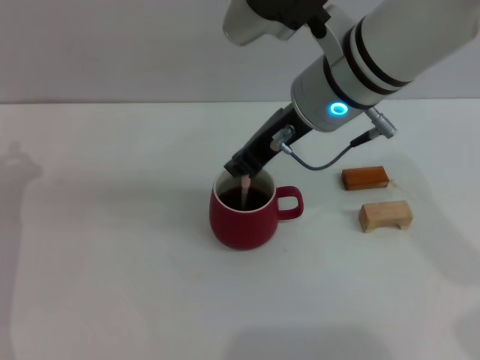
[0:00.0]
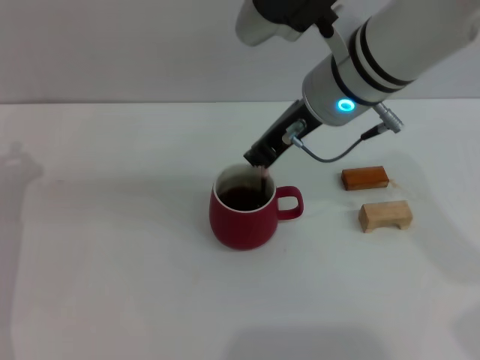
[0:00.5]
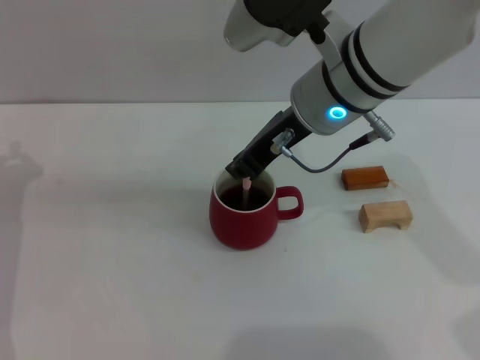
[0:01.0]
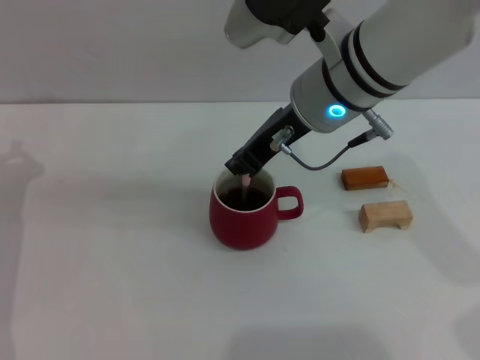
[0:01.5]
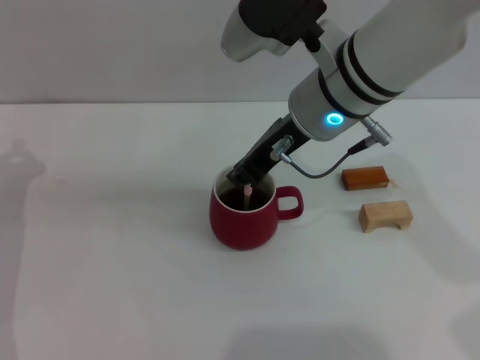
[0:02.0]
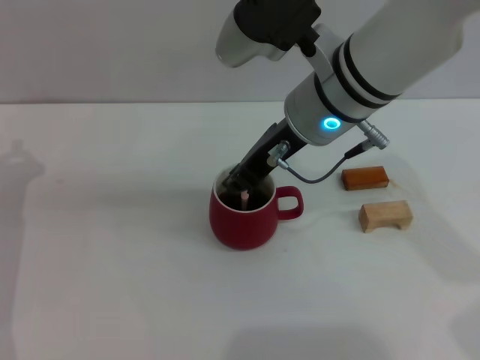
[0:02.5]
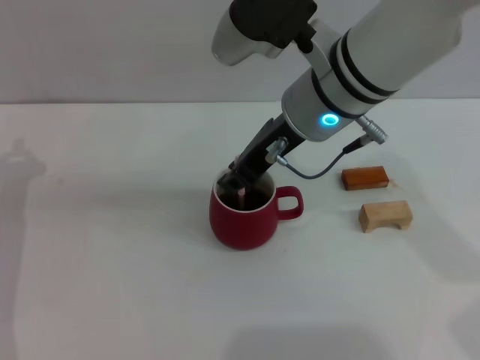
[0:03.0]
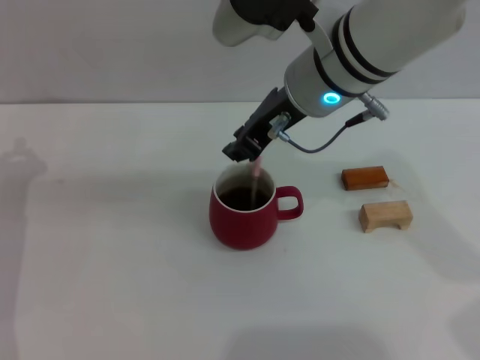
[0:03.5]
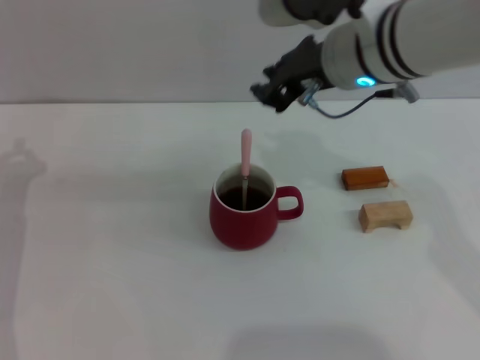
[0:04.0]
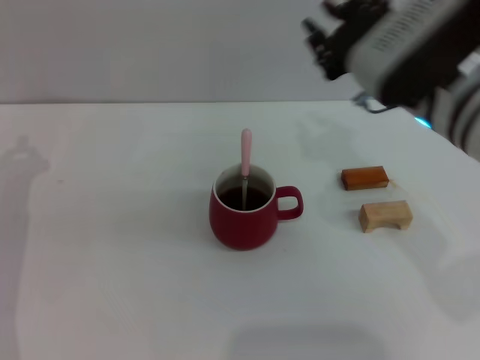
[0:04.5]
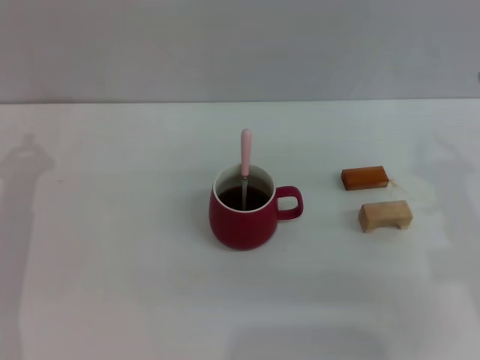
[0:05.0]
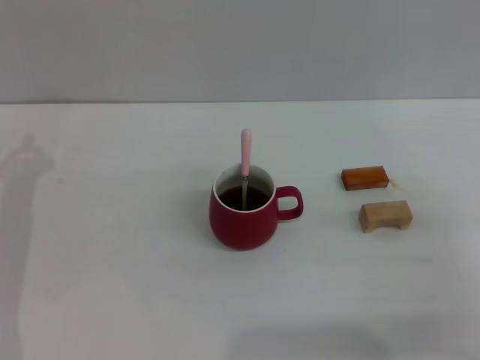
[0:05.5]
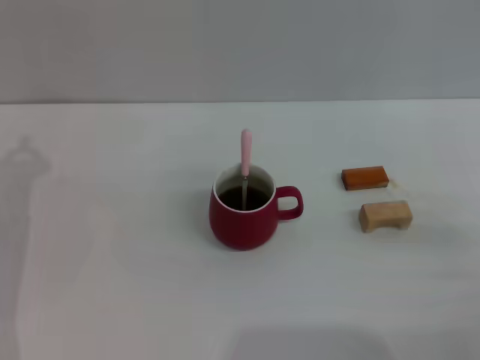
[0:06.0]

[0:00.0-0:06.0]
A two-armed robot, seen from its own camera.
Task of the whole recording: Move the red cup to the center, lift the pink spoon, stir it three times in the cup, and put the spoon into the cup.
Step, 0:00.0 to 0:03.5: Stir the coffee in the cup with the right gripper.
0:00.0 to 0:02.0: The grippers stay close to where they were, moving slightly.
0:04.0 to 0:06.0: The right gripper goes roughly 35 cm to the right, downward and backward.

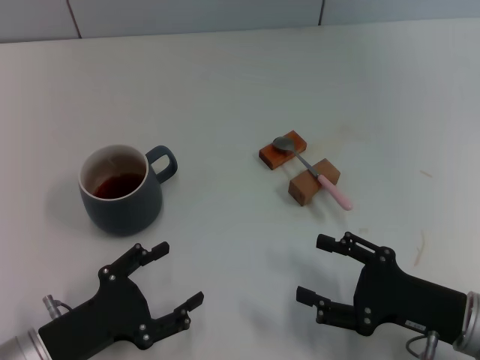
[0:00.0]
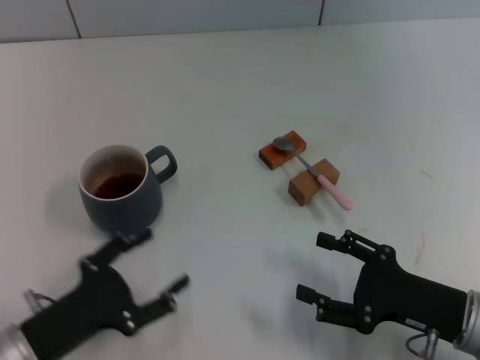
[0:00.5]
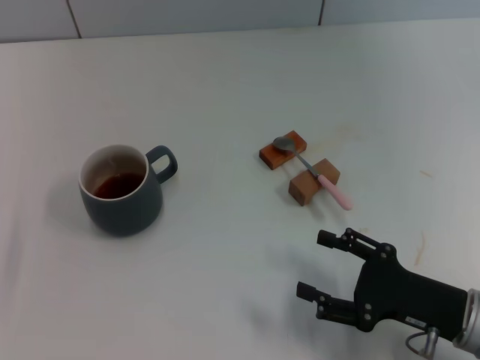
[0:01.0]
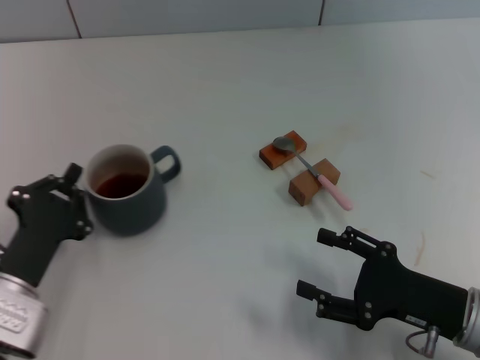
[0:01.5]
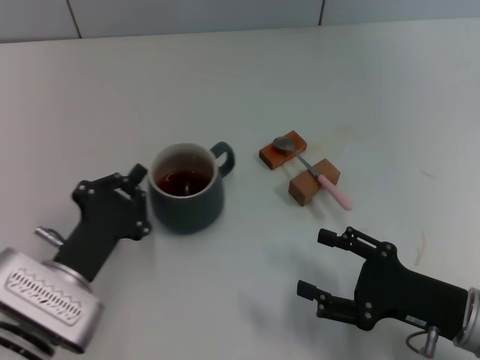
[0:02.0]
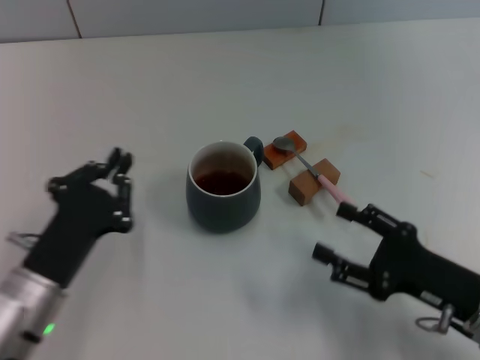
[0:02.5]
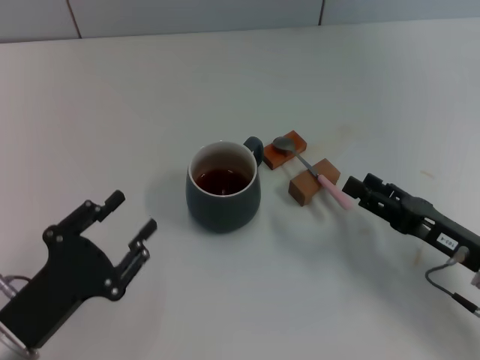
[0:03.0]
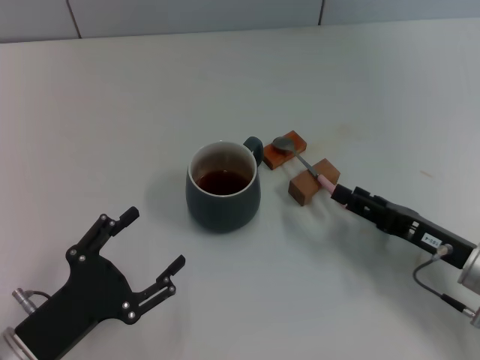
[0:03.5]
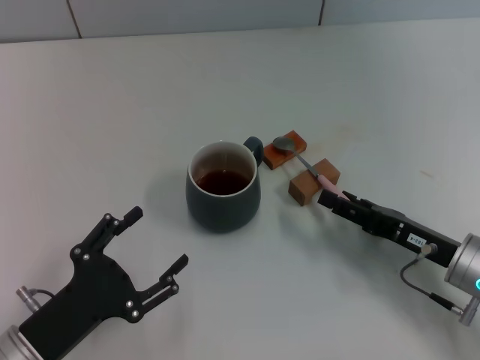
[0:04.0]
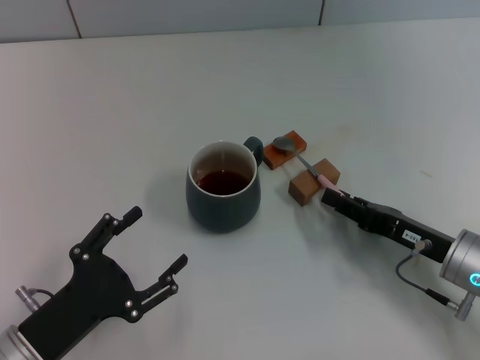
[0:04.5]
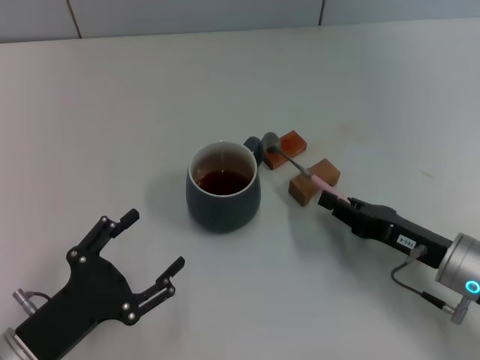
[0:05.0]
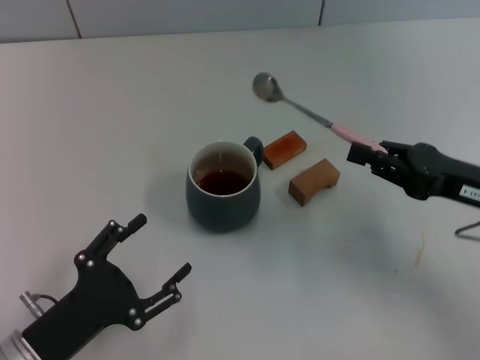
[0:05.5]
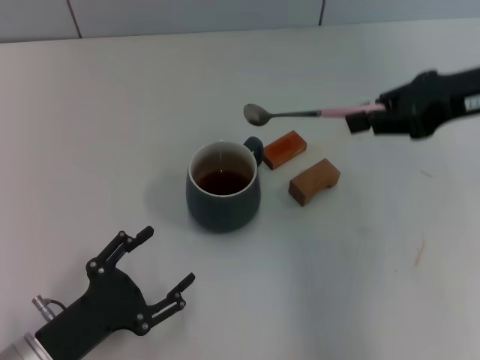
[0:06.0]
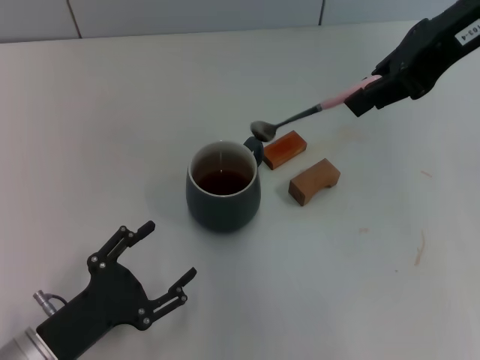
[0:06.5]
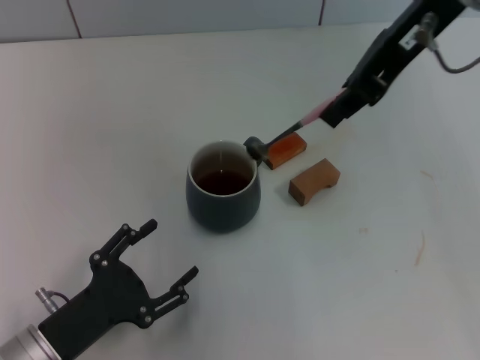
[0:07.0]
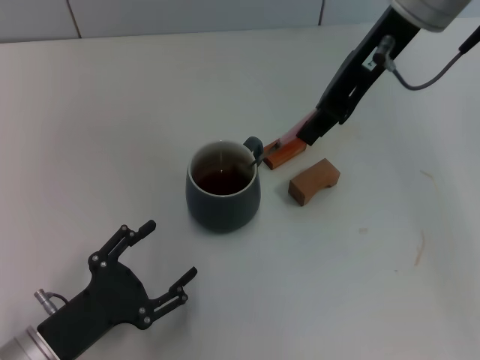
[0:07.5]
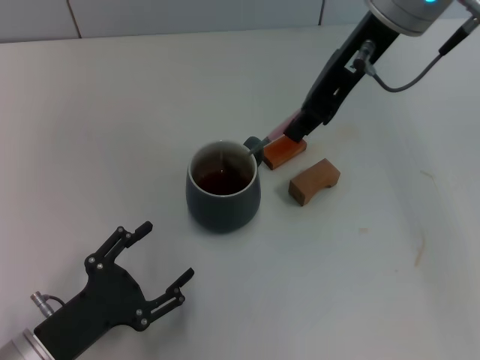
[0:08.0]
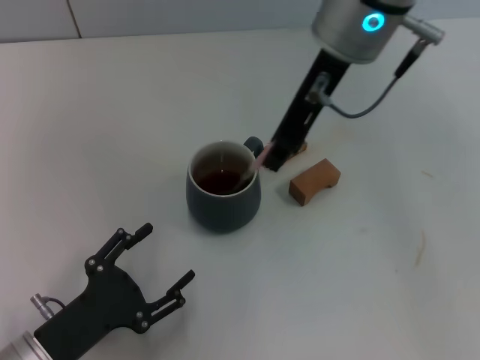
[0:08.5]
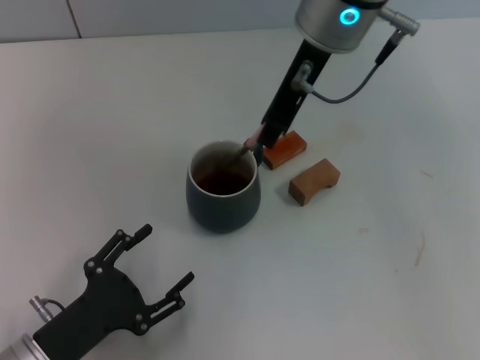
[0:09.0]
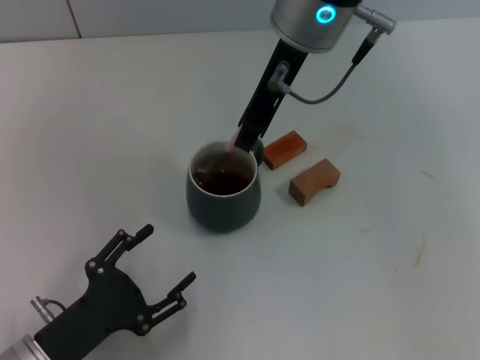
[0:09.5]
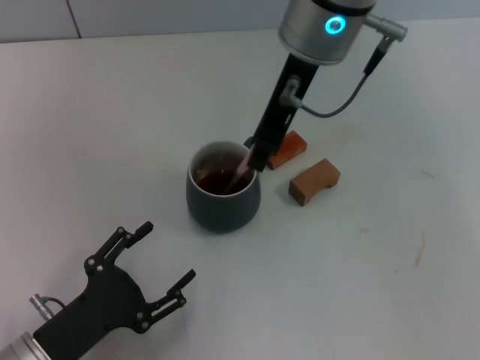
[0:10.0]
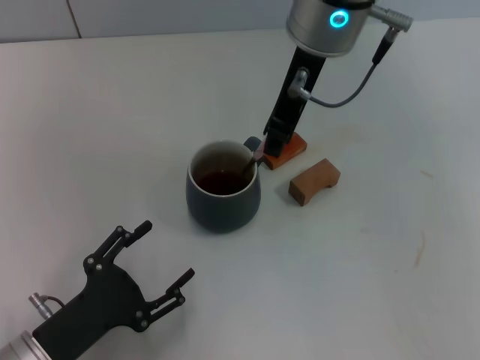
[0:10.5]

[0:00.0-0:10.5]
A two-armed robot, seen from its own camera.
Task of the whole recording: Move the grey cup to the center, lift the pink spoon, stir it three times in the cup, and put the spoon into the cup.
Step, 0:00.0 to 0:02.0: Move the cup with coffee to the center of view with the left gripper.
Step, 0:02.5 to 0:05.0: Pick up the spoon with the right gripper.
0:00.0 to 0:02.0: The left gripper shifts by roughly 5 cm, and closes.
0:02.0 to 0:04.0: The left gripper shifts approximately 5 cm backward, and opens its fingers; the right gripper is displaced forward by some 5 cm.
0:04.0 to 0:06.5: The right gripper heads upward, covering about 30 cm, and closes up.
0:06.5 to 0:08.5: The right gripper goes approximately 15 cm to the left and downward.
0:08.5 to 0:10.5: There are only small adjustments of the grippers.

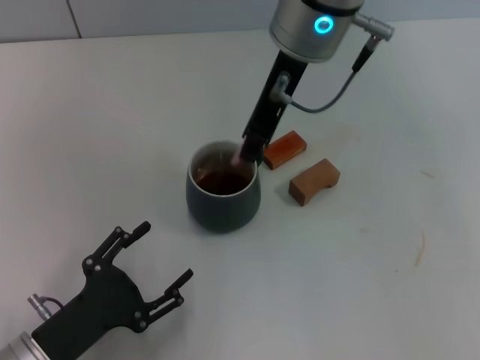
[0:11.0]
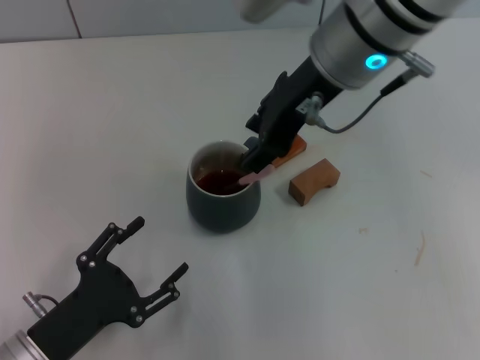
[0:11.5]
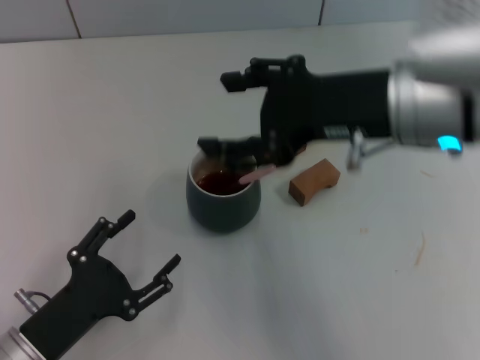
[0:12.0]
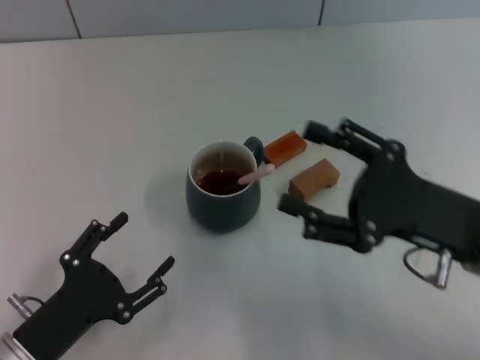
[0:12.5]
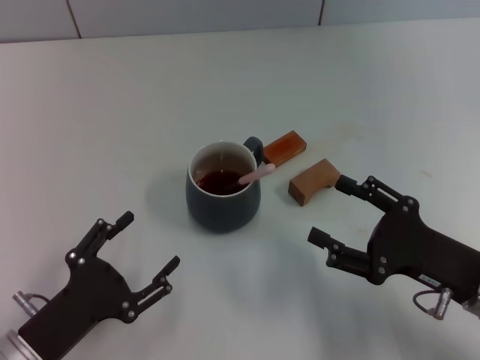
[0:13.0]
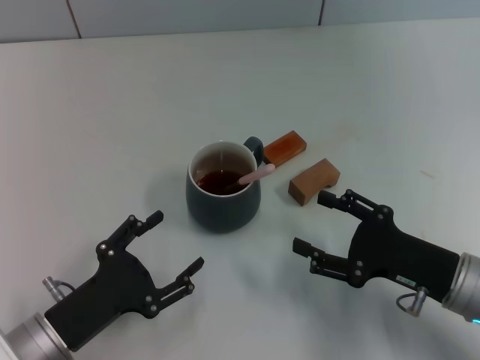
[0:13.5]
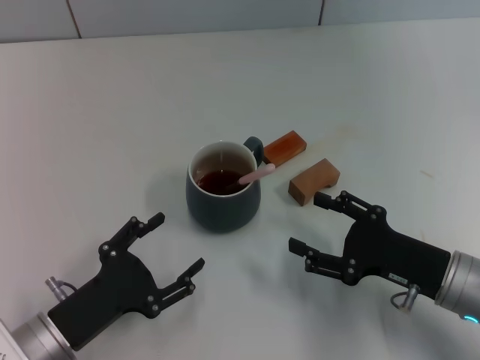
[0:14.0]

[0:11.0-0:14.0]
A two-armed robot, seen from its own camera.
Task of the whole recording: Move the grey cup to the center, lift the pink spoon, stir it three times in the cup, and put the spoon into the cup.
0:11.0 to 0:12.5: The right gripper moves backward, to the right and downward, about 30 cm, and opens.
0:12.5 to 0:14.0: The right gripper travels downward by about 10 cm.
